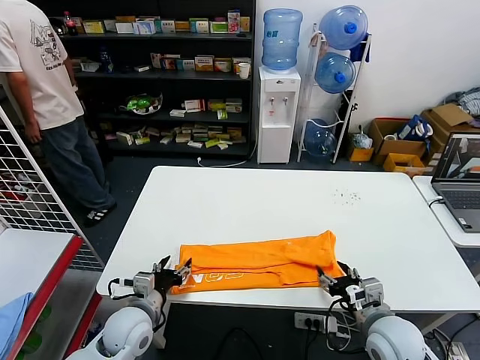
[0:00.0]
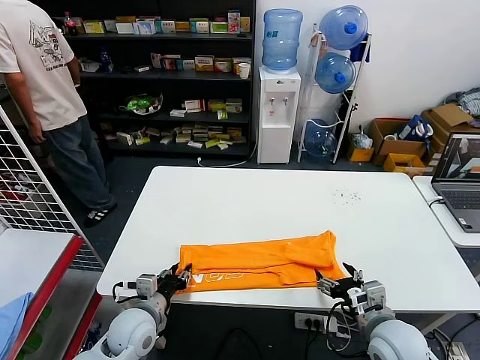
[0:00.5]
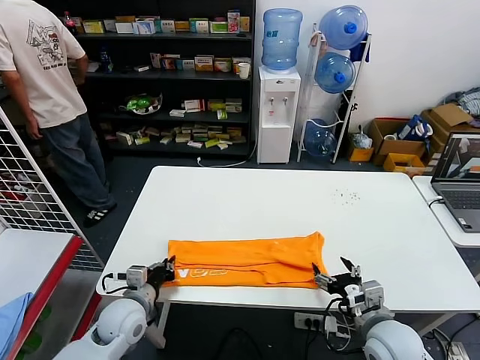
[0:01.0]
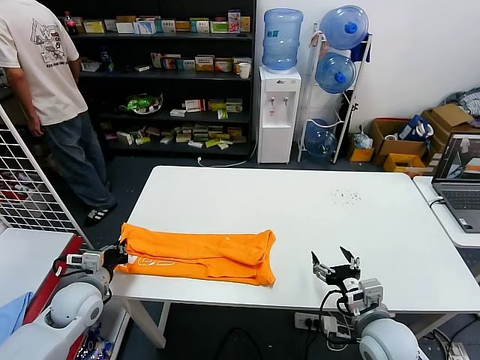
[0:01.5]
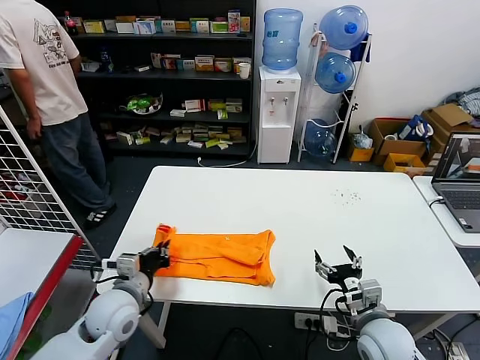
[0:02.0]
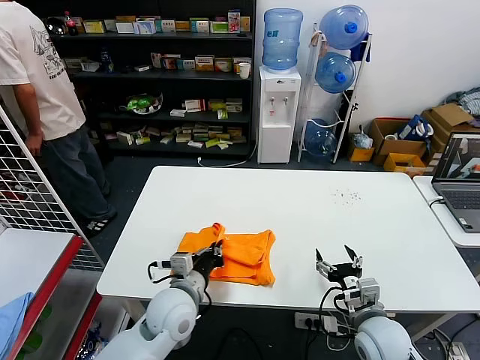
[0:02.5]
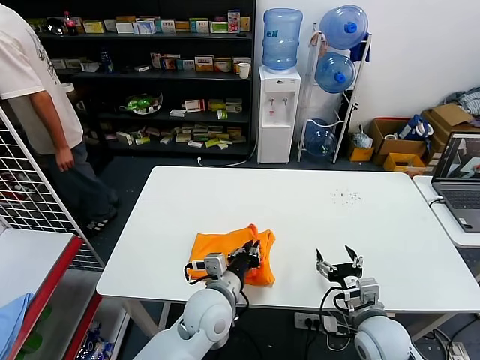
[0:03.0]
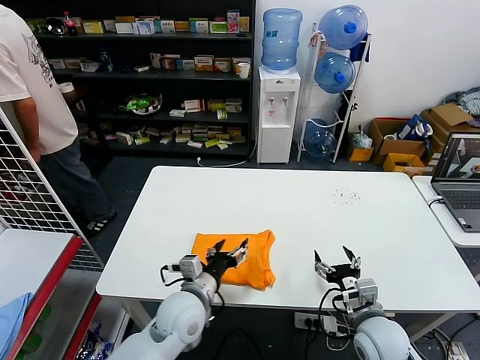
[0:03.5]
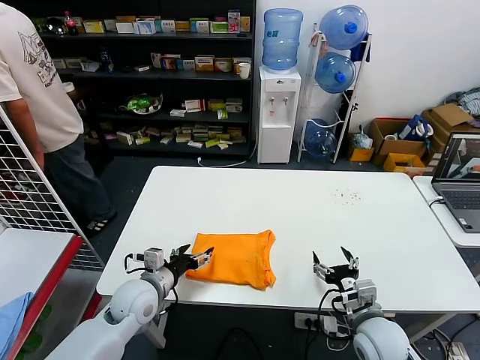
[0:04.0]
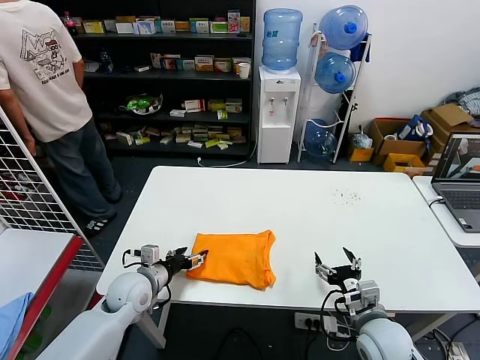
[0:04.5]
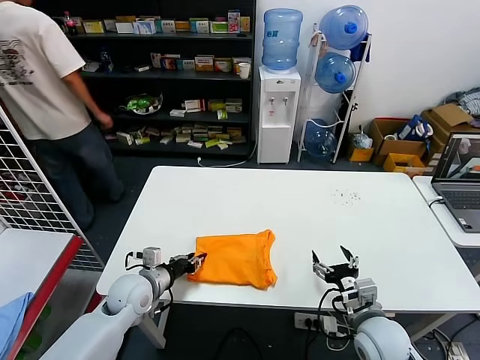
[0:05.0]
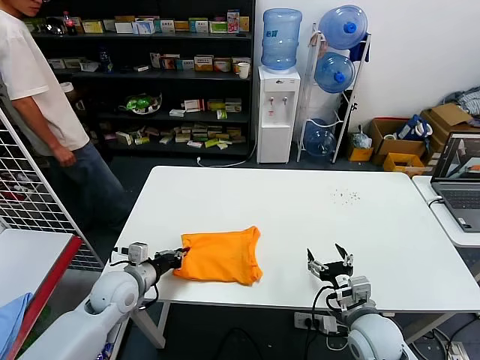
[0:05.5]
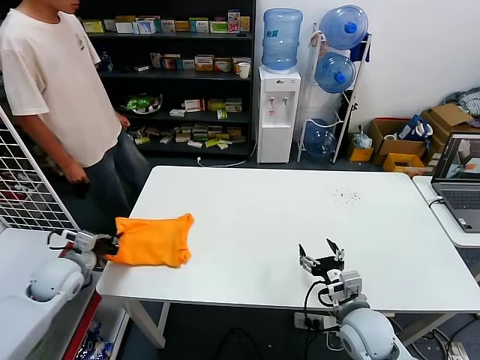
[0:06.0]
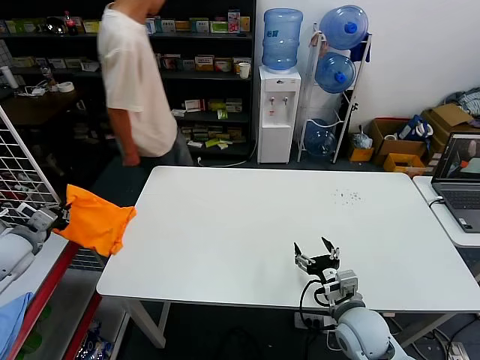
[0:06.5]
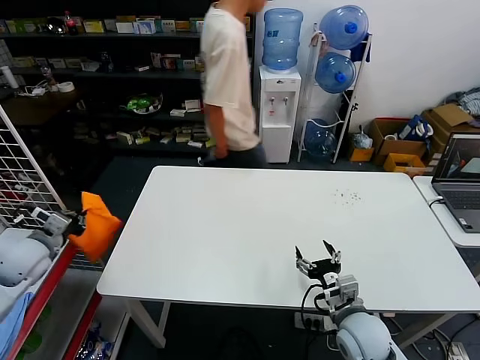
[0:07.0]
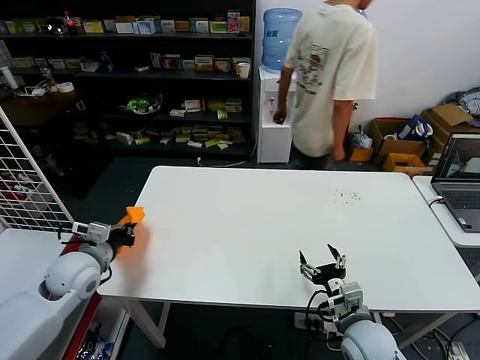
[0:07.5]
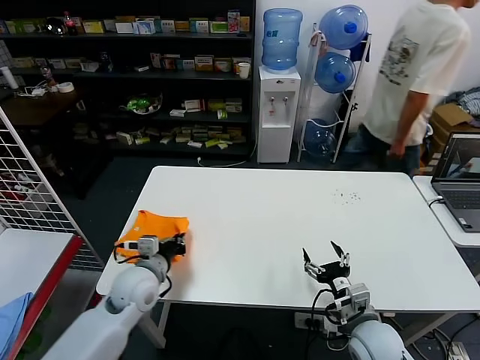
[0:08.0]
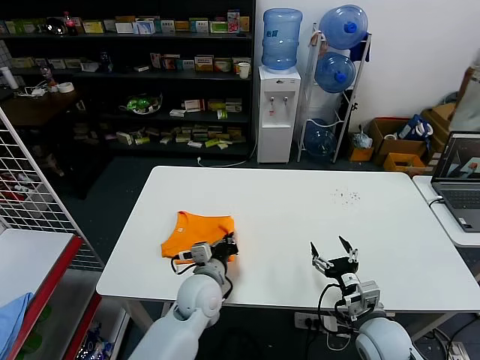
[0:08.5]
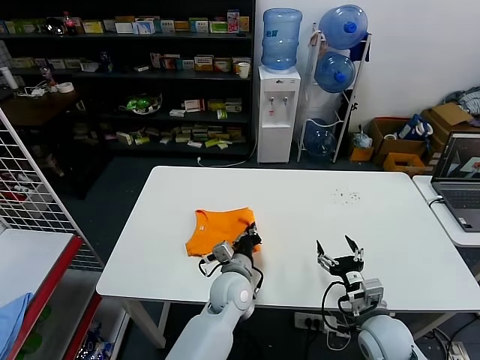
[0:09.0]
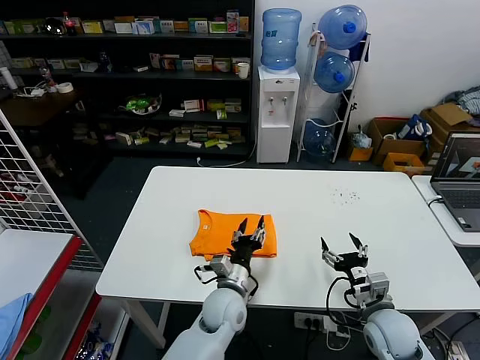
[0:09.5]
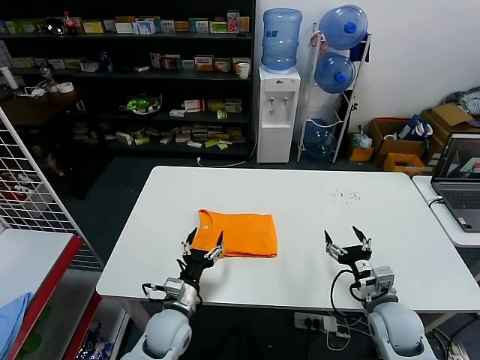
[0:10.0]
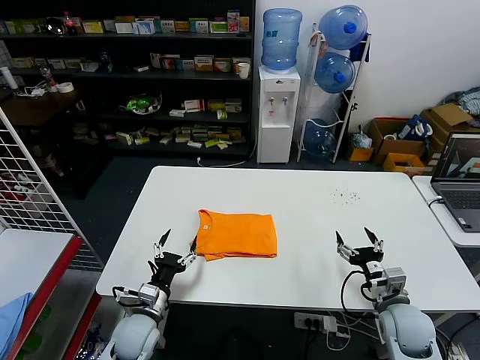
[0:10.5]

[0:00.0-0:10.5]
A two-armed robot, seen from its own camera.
Task of the whole recording: fold and organize the clothes.
Step, 0:00.0 to 0:00.5: use the left gripper to clamp the left edge of the fabric.
Step, 0:01.5 to 0:03.0: use the left gripper to drag the left edge of the fabric to the left and folds it over the right edge.
Step, 0:03.5 to 0:09.0: Flip the folded clothes over with left gripper.
0:00.0 to 0:02.0: The left gripper is displaced upward by some 5 cm, reaches about 10 cm to the left, then returns, and closes its fingers.
0:02.0 to 0:04.0: The left gripper moves some 20 cm to the right and comes back, and opens up.
0:04.0 to 0:06.5: The left gripper goes some 25 cm to the left, and closes up.
0:06.5 to 0:08.5: The left gripper travels to the right by roughly 40 cm.
0:08.5 to 0:10.5: The left gripper shifts about 15 cm to the left, downward and backward, and opens its fingers. Meanwhile the right gripper shifts approximately 5 cm to the right.
